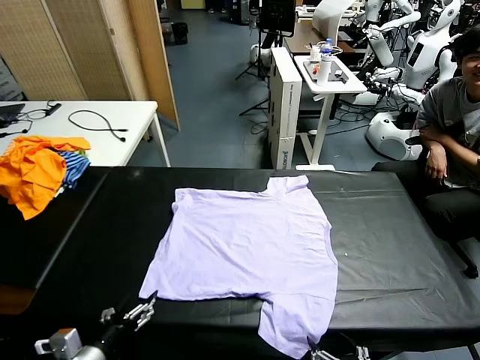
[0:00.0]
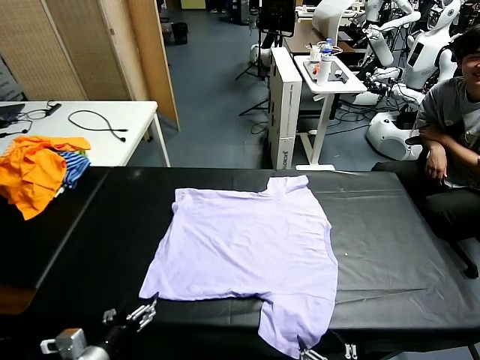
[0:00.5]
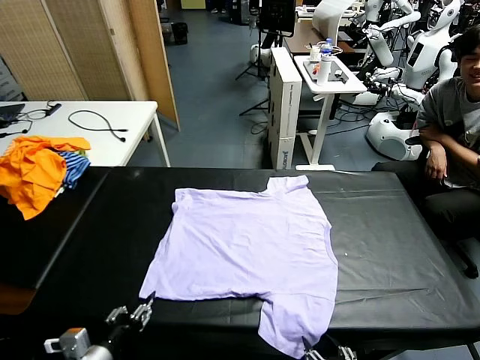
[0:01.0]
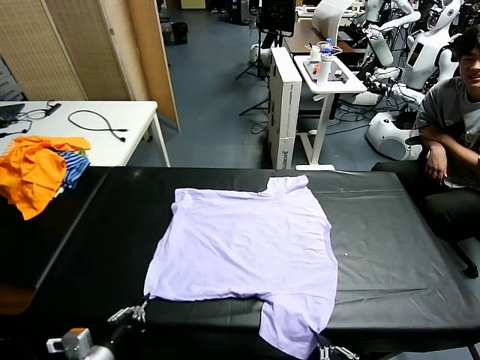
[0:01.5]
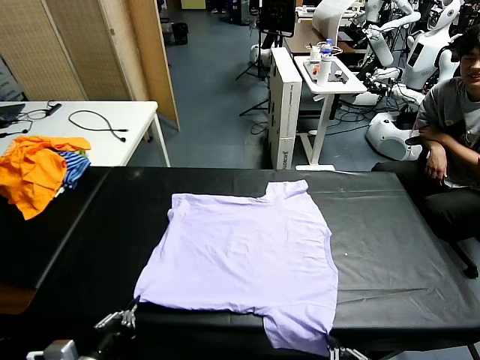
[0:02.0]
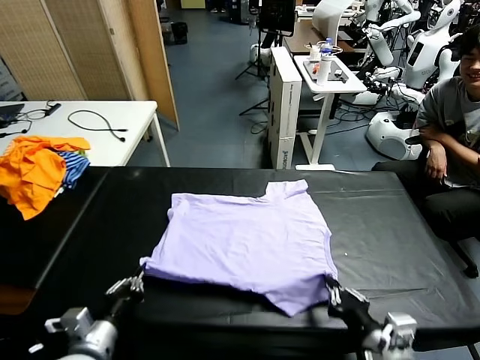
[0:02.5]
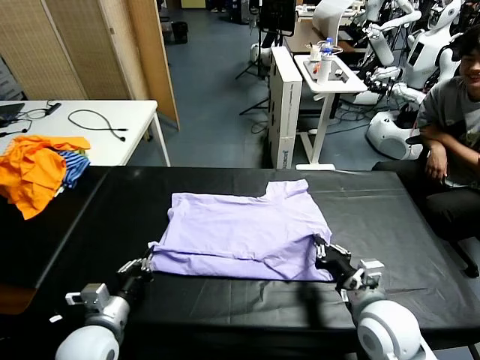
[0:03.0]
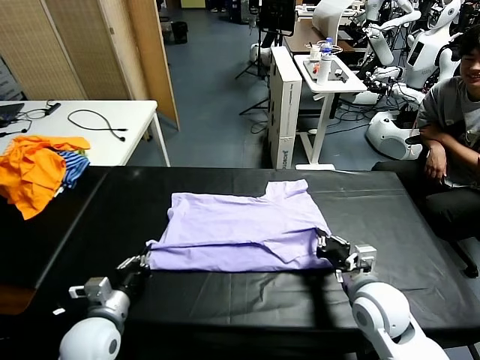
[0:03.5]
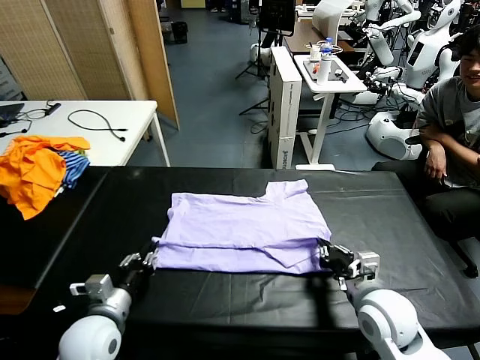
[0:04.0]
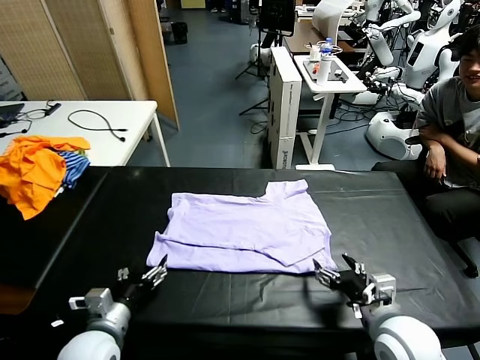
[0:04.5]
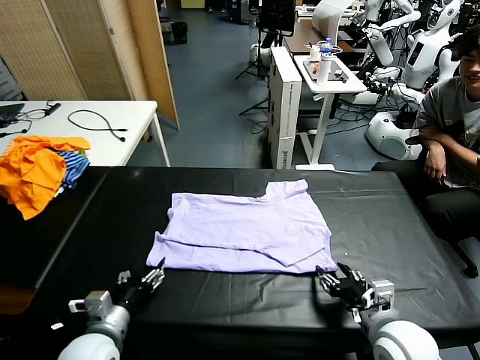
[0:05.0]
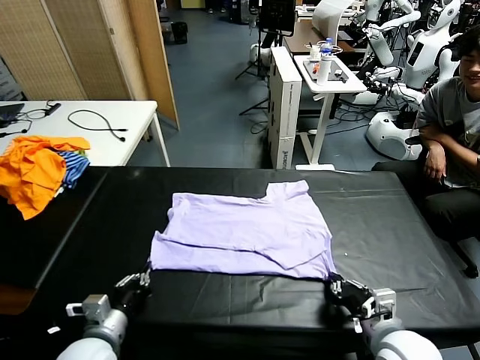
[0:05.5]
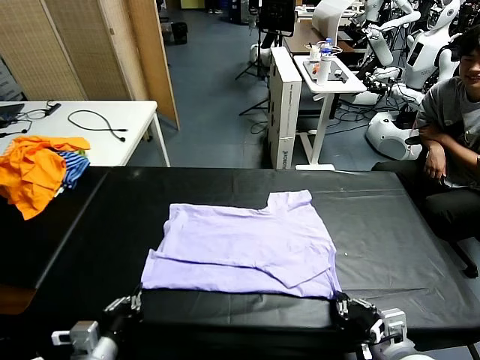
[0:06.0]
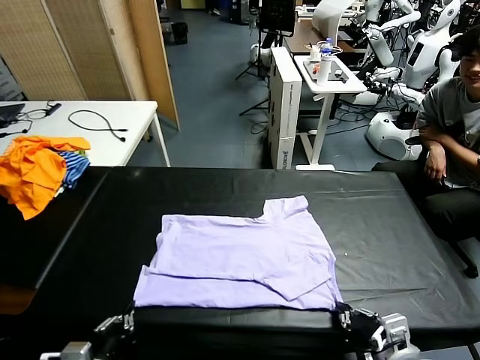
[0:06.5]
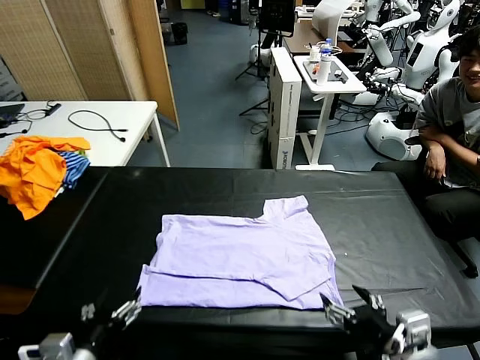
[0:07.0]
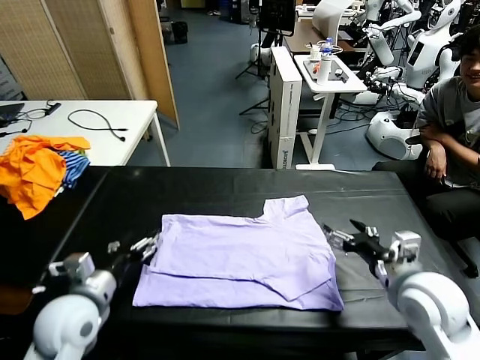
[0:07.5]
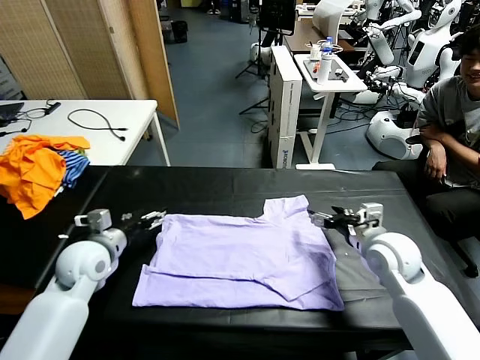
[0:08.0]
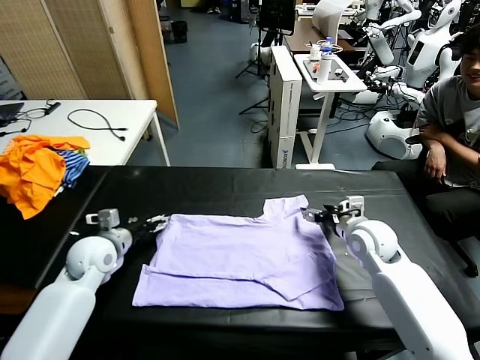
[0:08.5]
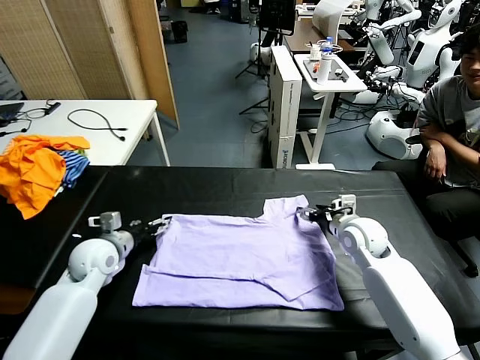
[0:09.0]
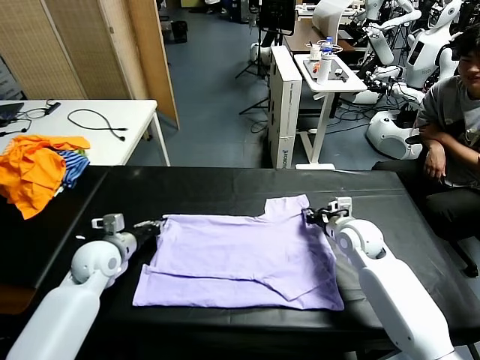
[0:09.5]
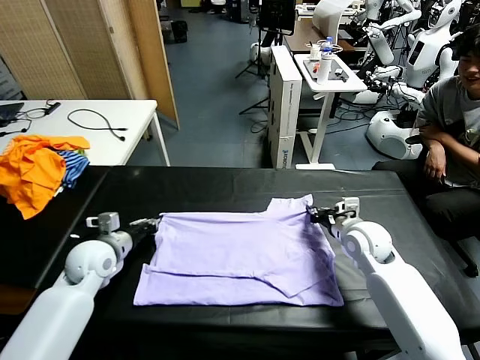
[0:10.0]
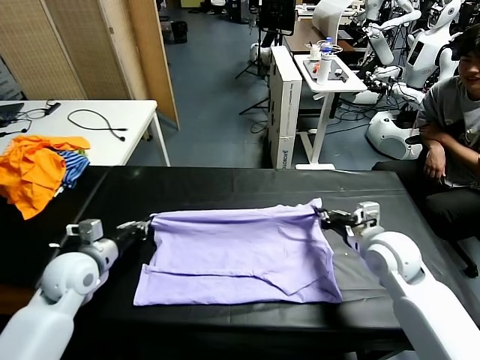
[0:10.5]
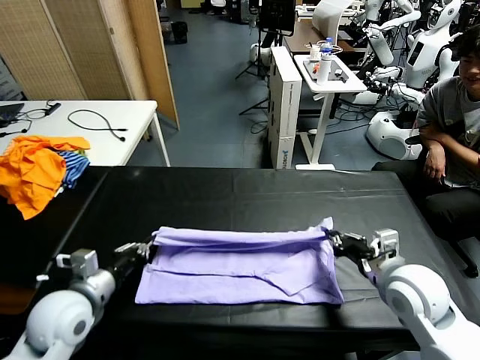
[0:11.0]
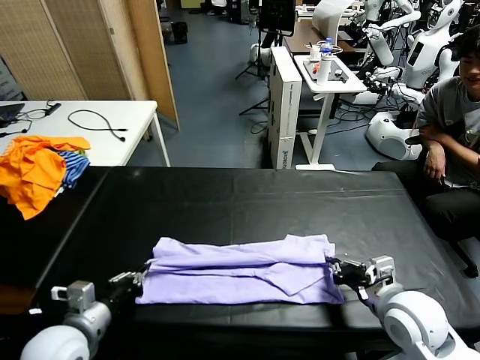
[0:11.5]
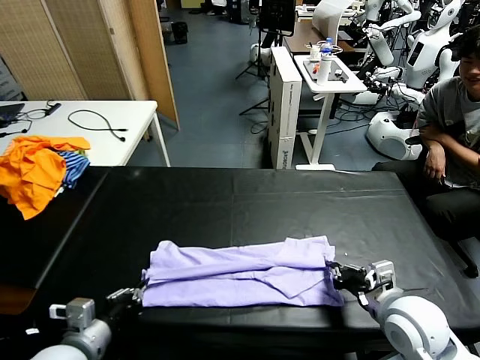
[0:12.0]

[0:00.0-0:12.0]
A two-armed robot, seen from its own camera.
Task of the whole recording: fold and organize the clothes.
Step, 0:00.0 to 0:01.5: use both grippers simultaneously to clamp the lower edge of the clothing fabric.
Step, 0:02.0 to 0:04.0: use both grippers to drag the lower edge of the fabric forward and fold it over the upper edge.
Step, 0:04.5 to 0:06.5: Drag the clothes downward with both gripper.
Step, 0:07.0 to 0:09.5: use both grippers simultaneously to clamp the upper edge of the clothing fabric.
0:02.0 to 0:04.0: Both grippers travel together forward, roughly 10 cm. The left gripper opens up, while the right gripper opens up.
0:04.0 to 0:06.0: The grippers both shift backward by some 10 cm. The left gripper closes its fingers. The right gripper closes its fingers.
0:06.0 to 0:08.0: Both grippers move forward, some 25 cm. The left gripper opens its fingers; the right gripper opens its fingers.
0:08.0 to 0:10.0: The left gripper closes up. The right gripper closes up.
0:10.0 to 0:12.0: Both grippers travel together backward, roughly 20 cm. The right gripper opens its fingers.

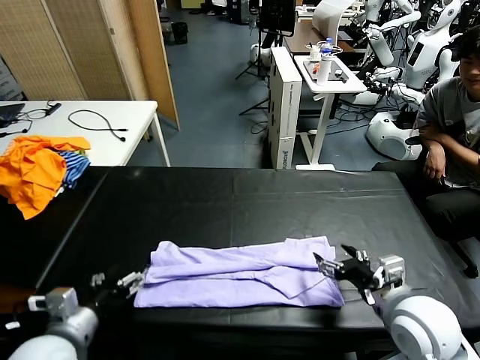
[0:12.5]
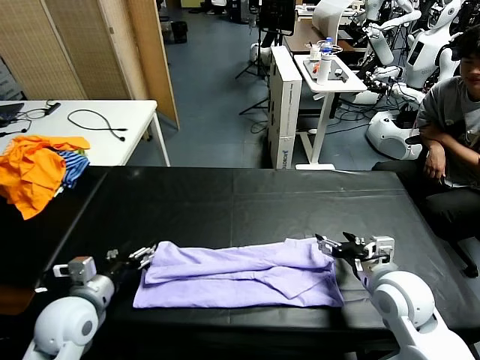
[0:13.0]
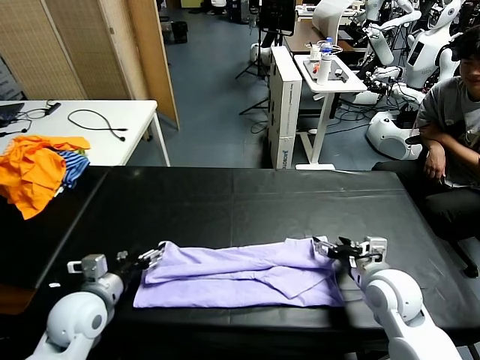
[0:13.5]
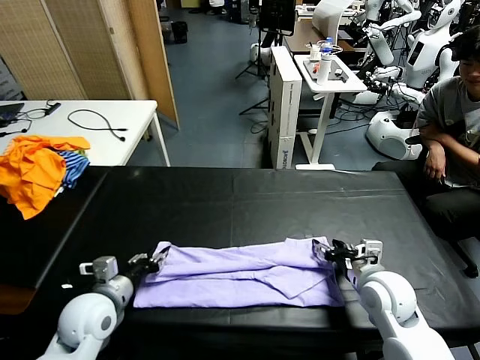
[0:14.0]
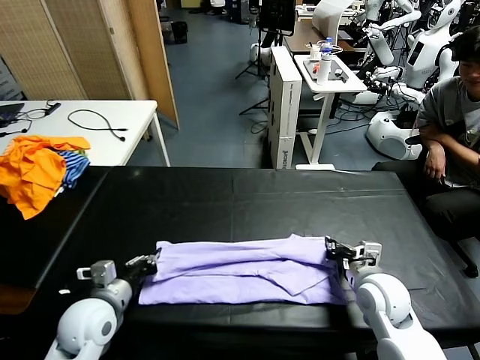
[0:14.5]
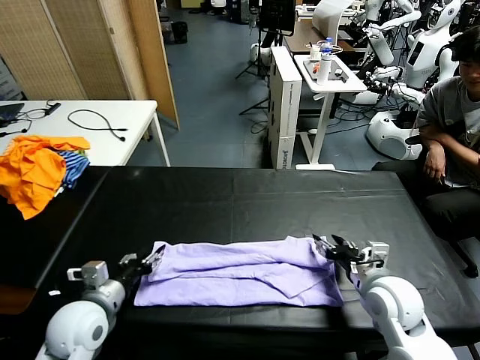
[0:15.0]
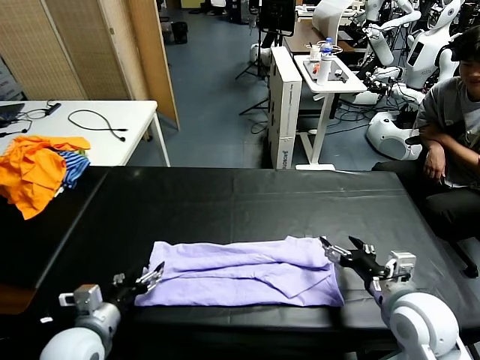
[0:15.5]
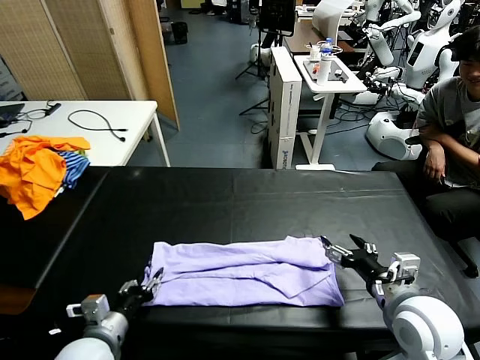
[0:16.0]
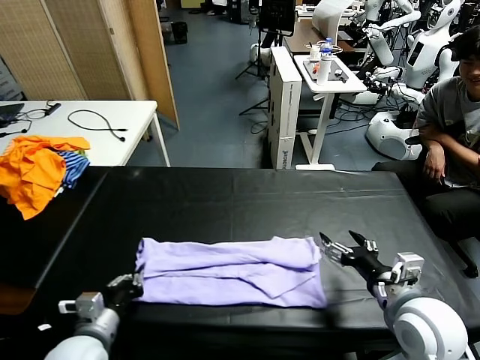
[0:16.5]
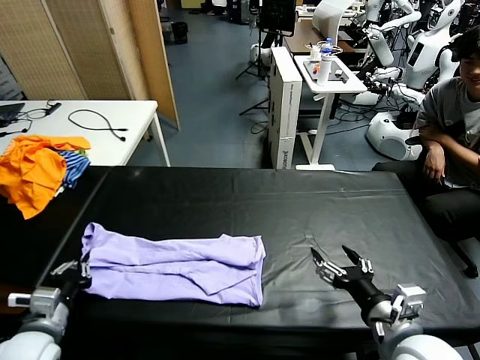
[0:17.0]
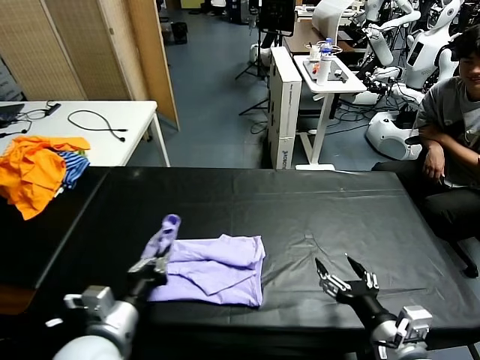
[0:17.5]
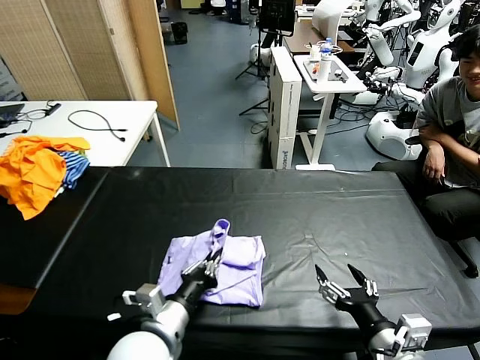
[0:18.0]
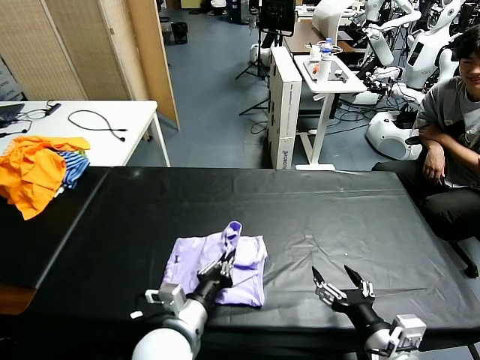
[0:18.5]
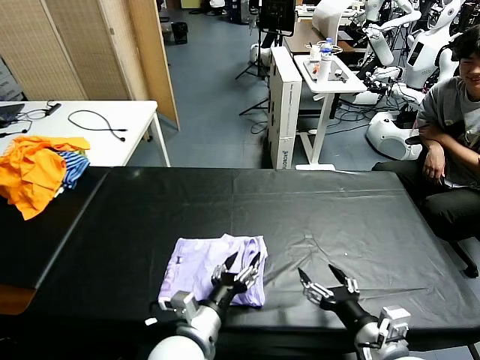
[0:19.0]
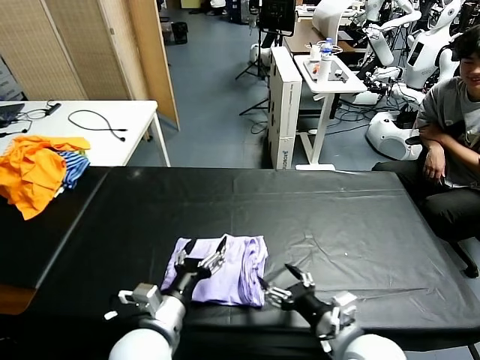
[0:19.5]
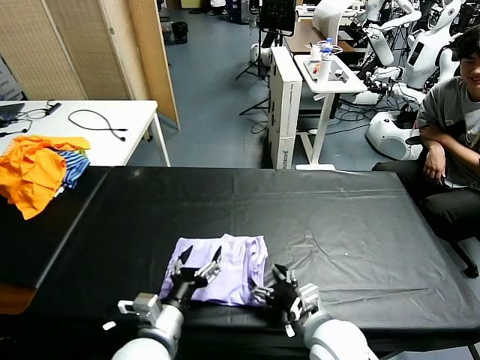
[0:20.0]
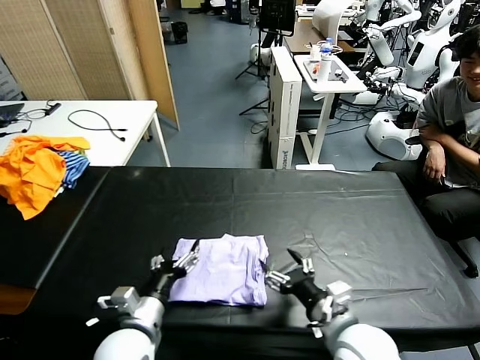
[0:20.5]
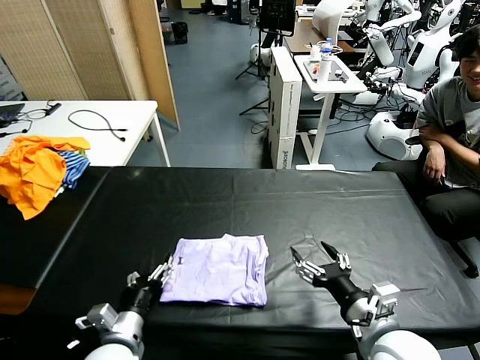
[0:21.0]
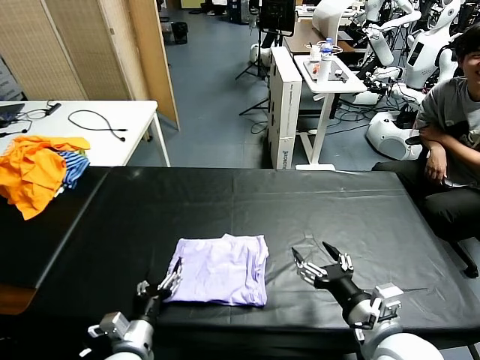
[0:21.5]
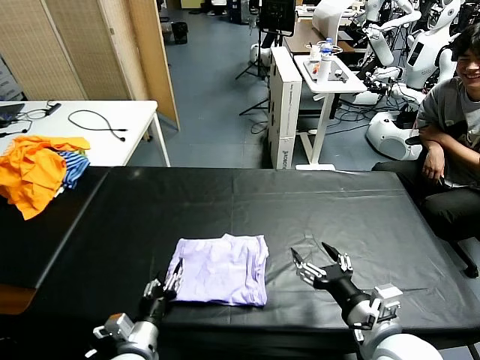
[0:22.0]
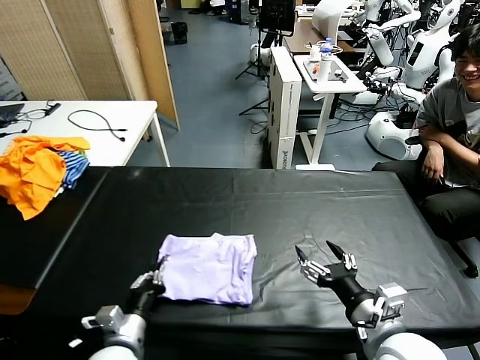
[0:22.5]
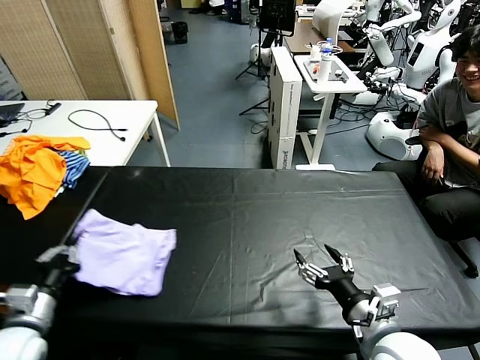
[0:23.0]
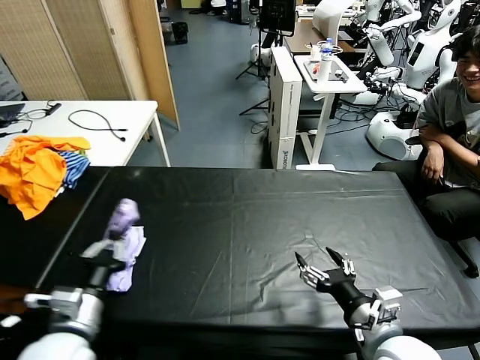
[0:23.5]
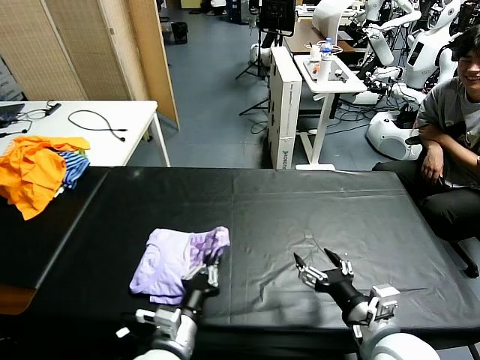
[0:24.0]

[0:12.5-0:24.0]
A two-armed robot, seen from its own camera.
Task of the whole recording: fold and organize the clothes.
Step, 0:12.5 to 0:15.0: use both grippers to drag the upper edge of the fabric backward and fold it over the lower edge.
Step, 0:15.5 to 0:16.0: use the left gripper to clamp the left edge of the fabric.
Step, 0:16.5 to 0:20.5: use the left gripper to drag the left edge of the fabric to the left and folds it over the right edge.
0:12.5 to 0:14.5: The left gripper shifts some 10 cm forward and downward, and closes its fingers; the right gripper moves downward, some 5 cm, and closes its fingers.
0:14.5 to 0:16.5: The left gripper moves backward, approximately 5 cm, and opens, then closes again; the right gripper travels backward and upward by about 10 cm, and opens.
0:16.5 to 0:18.5: The left gripper moves to the right, about 15 cm; the right gripper moves backward, some 10 cm.
0:18.5 to 0:20.0: The right gripper is displaced to the left, forward and downward by approximately 15 cm; the left gripper opens up.
0:20.0 to 0:22.0: The left gripper goes roughly 10 cm downward and to the left, and closes up, while the right gripper goes some 10 cm upward and to the right.
0:22.0 to 0:24.0: The left gripper moves upward, about 5 cm, travels to the left and back again, about 15 cm each way, and closes.

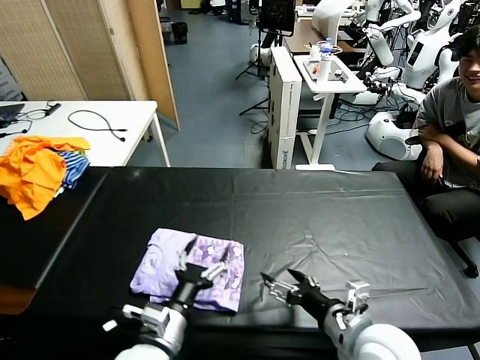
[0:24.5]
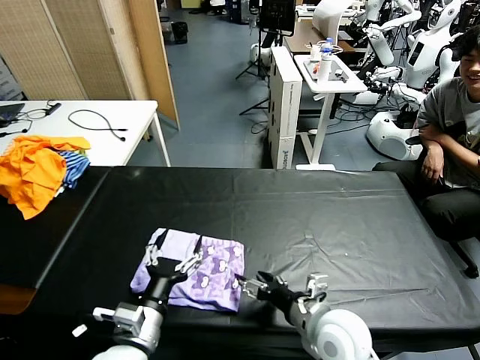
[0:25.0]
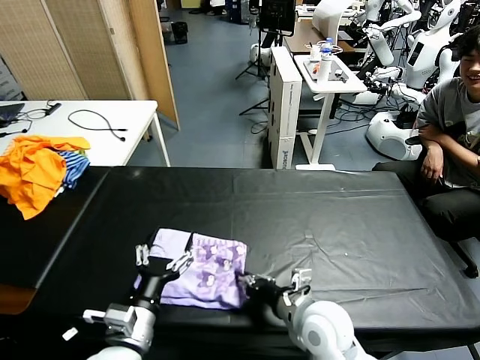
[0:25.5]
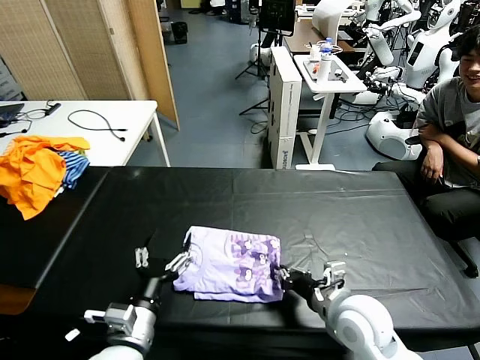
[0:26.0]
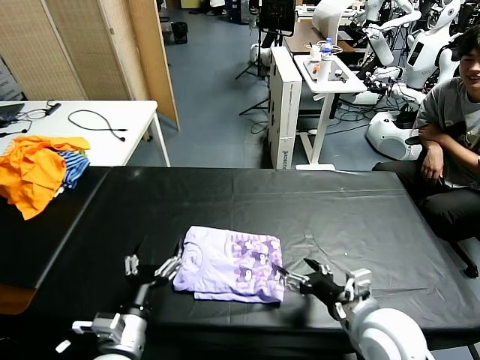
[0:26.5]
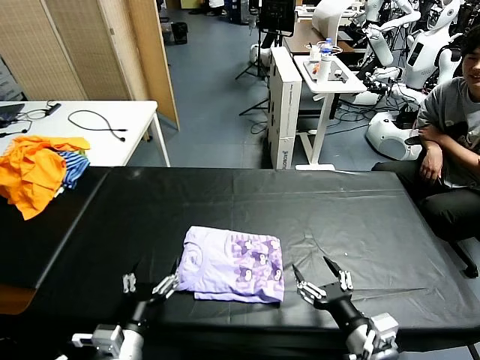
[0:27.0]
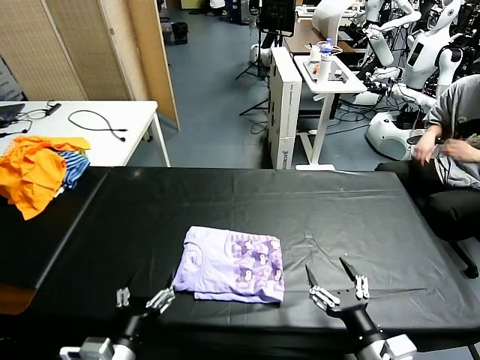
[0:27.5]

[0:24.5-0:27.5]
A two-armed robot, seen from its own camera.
Task of the whole recording: fold and organize the clothes.
Step, 0:25.0 to 0:26.0: Drag the clothes to the center of the table.
0:24.5 to 0:26.0: The right gripper is displaced forward by approximately 5 cm, and closes up.
0:26.0 to 0:27.5: The right gripper is displaced backward by about 15 cm, and opens its fingers. Meanwhile the left gripper moves backward, about 5 cm.
